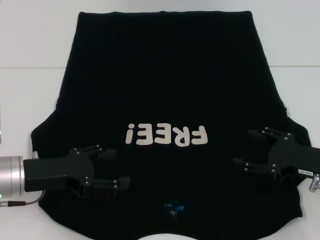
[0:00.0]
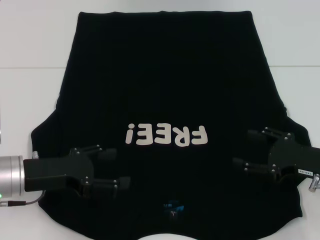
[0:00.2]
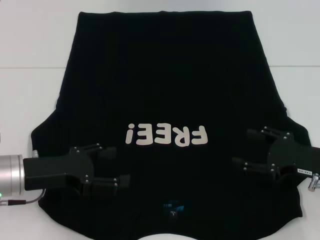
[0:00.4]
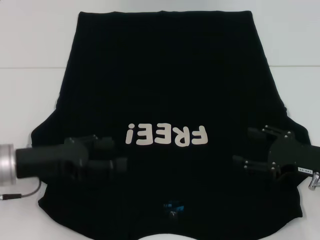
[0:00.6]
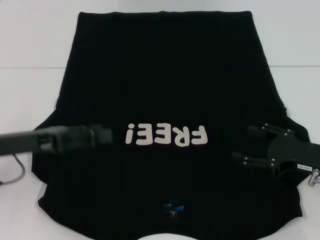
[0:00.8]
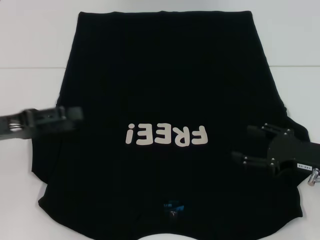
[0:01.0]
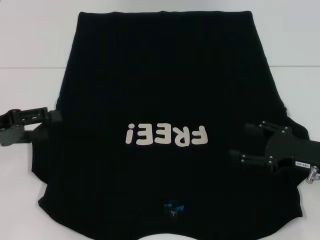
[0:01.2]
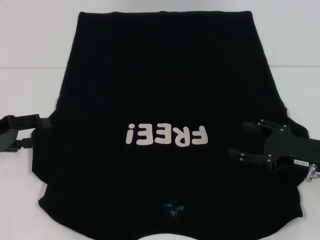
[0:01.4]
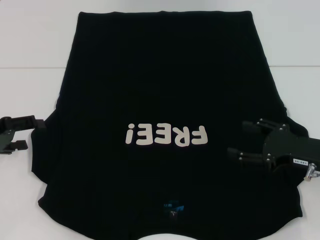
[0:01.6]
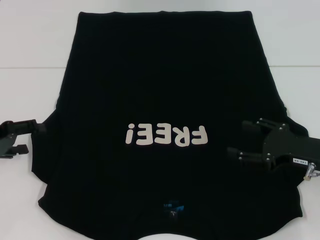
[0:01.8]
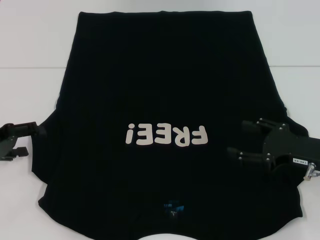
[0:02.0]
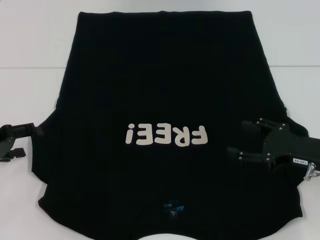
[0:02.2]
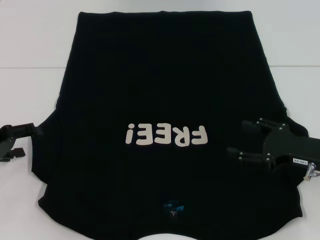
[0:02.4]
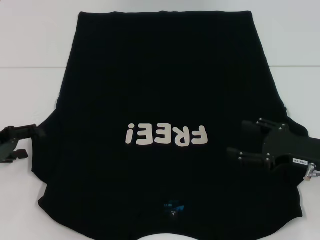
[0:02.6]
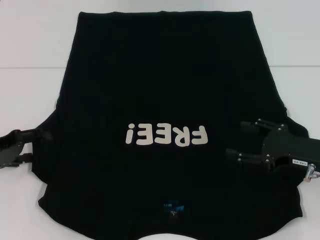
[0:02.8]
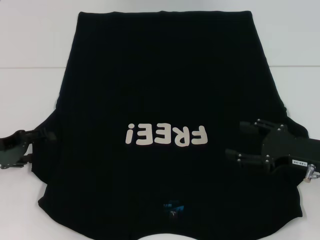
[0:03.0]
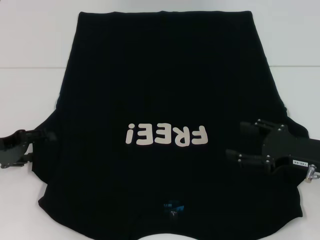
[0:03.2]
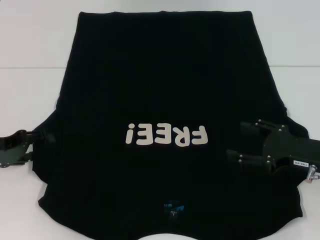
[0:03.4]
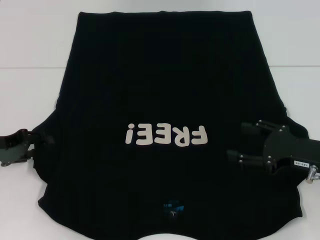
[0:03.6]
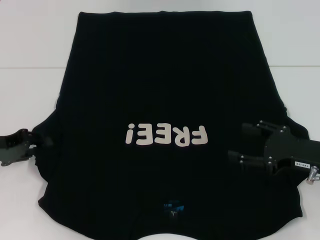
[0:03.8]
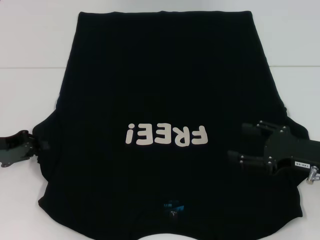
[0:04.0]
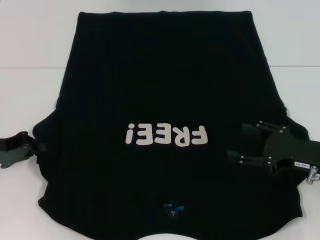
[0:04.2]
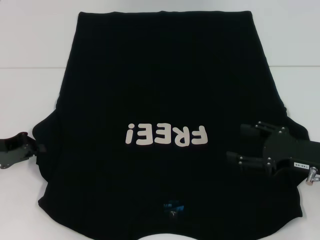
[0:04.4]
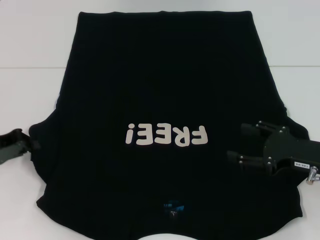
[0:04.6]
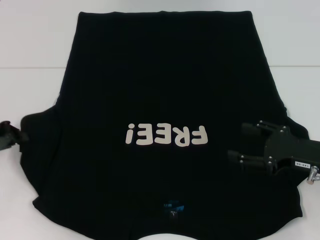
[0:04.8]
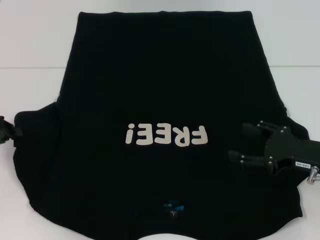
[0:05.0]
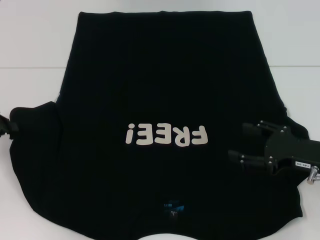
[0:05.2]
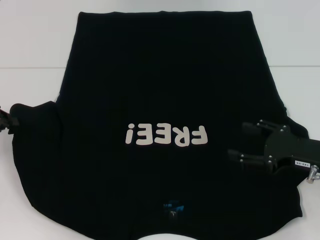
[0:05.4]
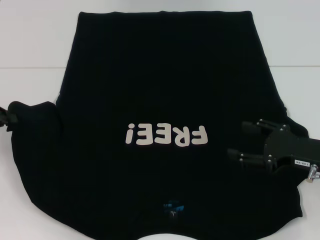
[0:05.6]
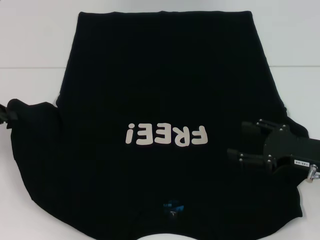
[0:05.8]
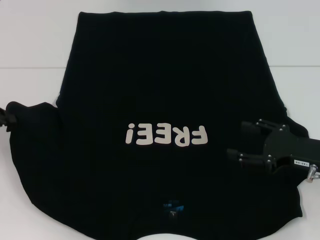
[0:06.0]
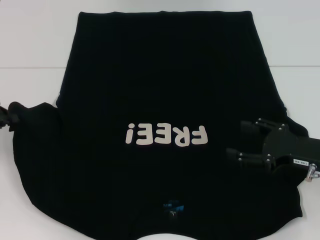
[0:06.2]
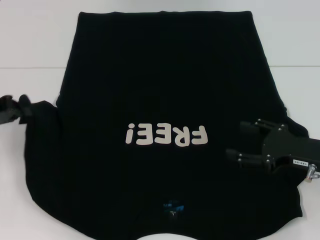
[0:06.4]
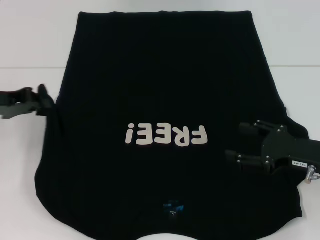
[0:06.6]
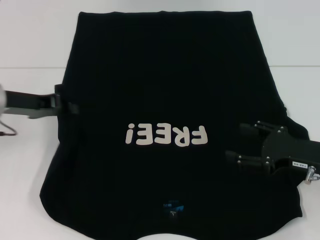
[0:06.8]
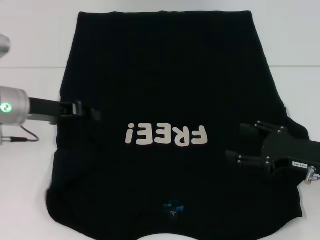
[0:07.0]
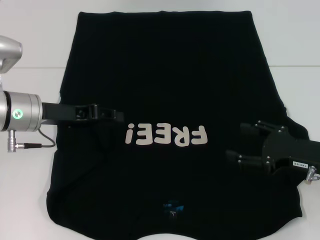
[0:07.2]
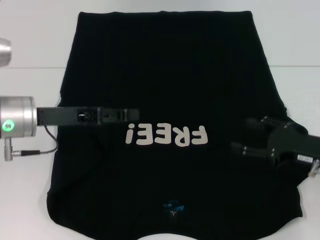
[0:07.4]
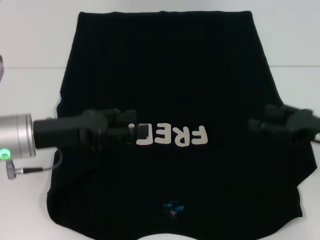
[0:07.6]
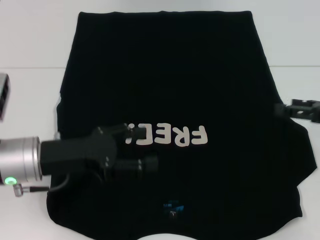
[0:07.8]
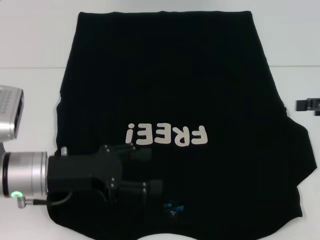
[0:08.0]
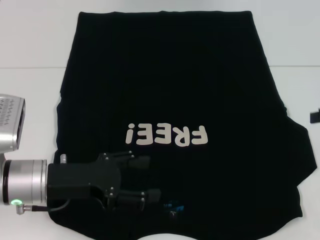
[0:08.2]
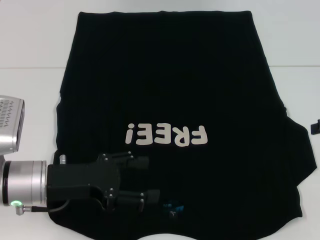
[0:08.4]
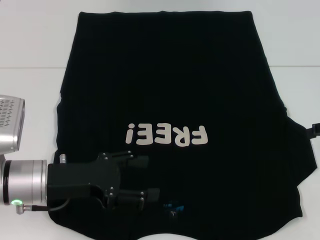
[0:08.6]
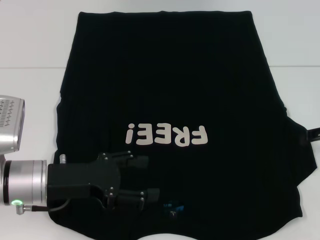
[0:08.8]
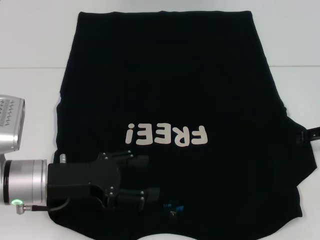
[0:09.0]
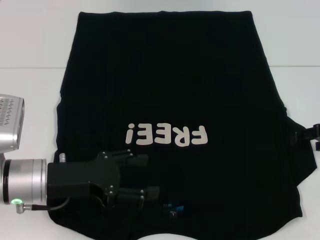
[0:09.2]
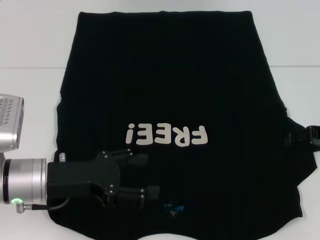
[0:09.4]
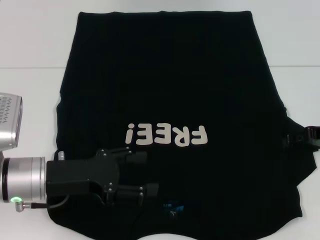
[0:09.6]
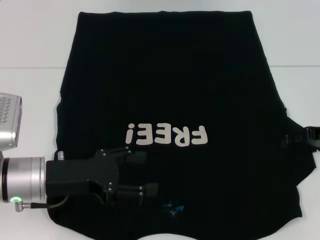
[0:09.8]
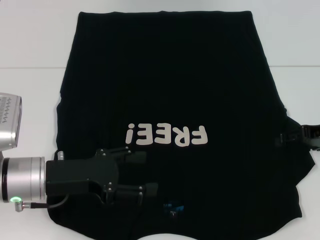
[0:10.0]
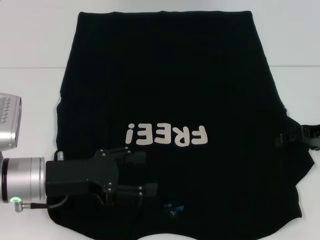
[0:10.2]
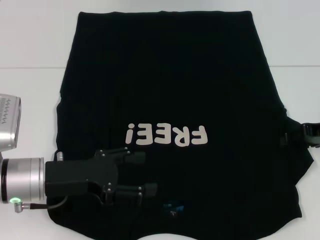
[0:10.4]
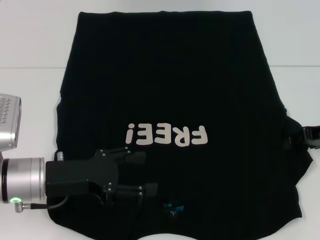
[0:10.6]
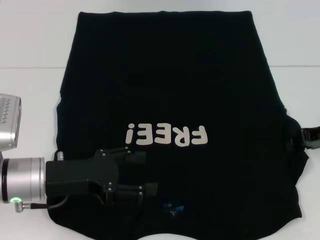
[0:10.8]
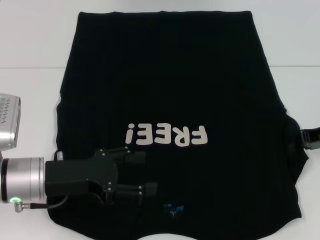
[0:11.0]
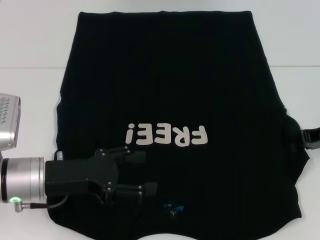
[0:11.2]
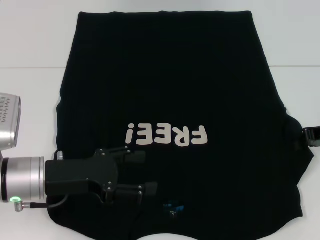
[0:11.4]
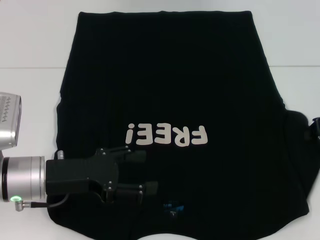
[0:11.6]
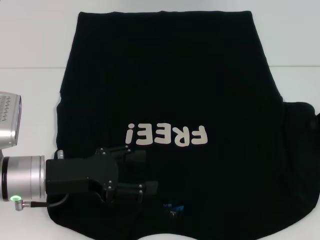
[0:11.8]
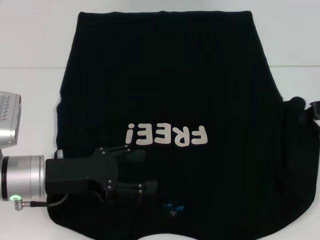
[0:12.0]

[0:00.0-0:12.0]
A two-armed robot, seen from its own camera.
Step, 0:00.0 to 0:07.8: Fold the bottom left sleeve with your left hand.
0:00.0 to 0:01.6: The left gripper is displaced to the left by about 10 cm.
0:01.6 to 0:03.0: There are only small adjustments of the grippers.
0:03.0 to 0:04.4: The left gripper closes its fingers.
0:04.4 to 0:06.0: The left gripper moves about 5 cm.
0:06.0 to 0:07.6: The left gripper heads to the right, covering roughly 15 cm, and opens its fingers.
0:07.6 to 0:09.0: The right gripper moves forward, approximately 5 cm, while the left gripper changes place by some 5 cm, and opens its fingers.
0:09.0 to 0:10.4: The grippers stay close to where they were, moving slightly.
0:10.4 to 0:12.0: The right gripper closes its fingers.

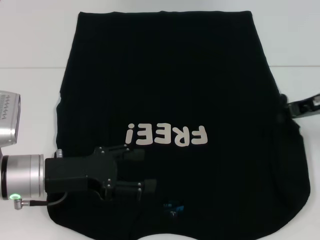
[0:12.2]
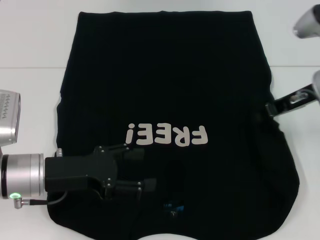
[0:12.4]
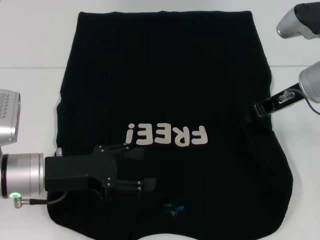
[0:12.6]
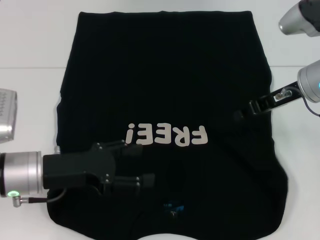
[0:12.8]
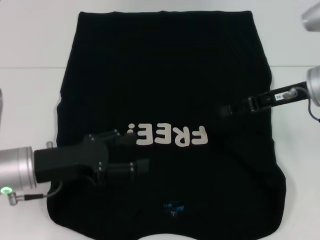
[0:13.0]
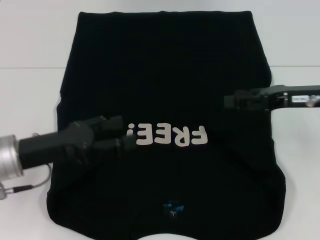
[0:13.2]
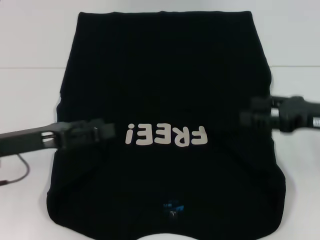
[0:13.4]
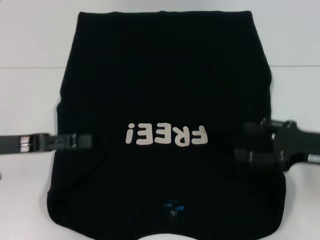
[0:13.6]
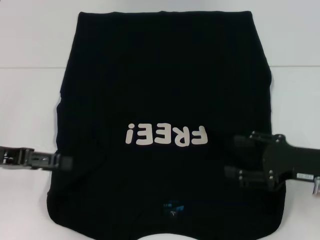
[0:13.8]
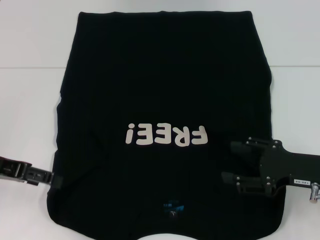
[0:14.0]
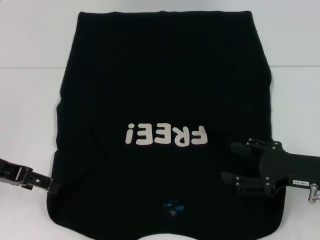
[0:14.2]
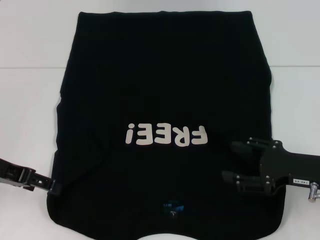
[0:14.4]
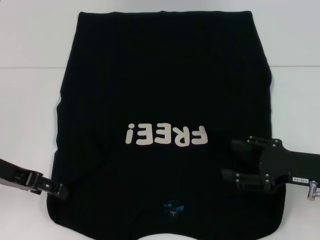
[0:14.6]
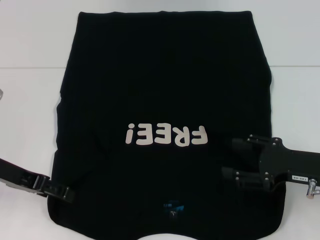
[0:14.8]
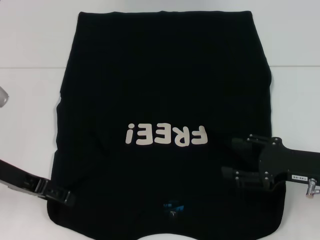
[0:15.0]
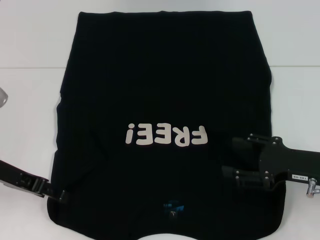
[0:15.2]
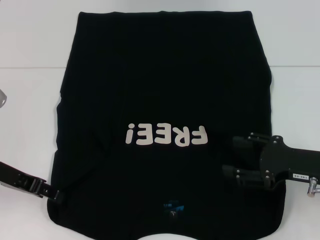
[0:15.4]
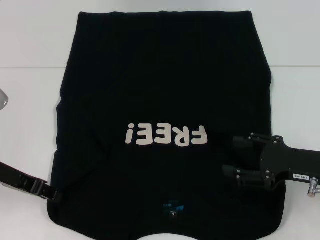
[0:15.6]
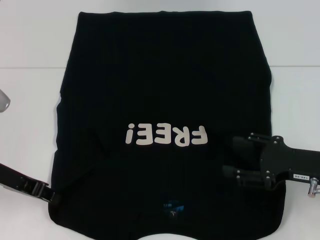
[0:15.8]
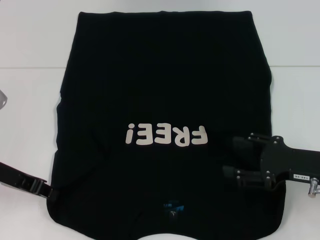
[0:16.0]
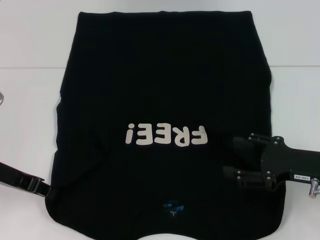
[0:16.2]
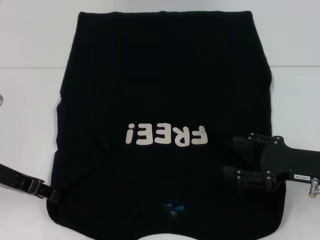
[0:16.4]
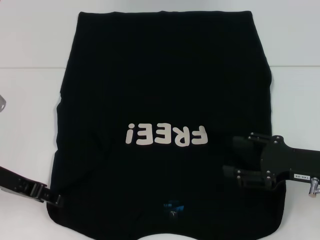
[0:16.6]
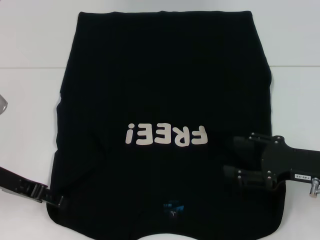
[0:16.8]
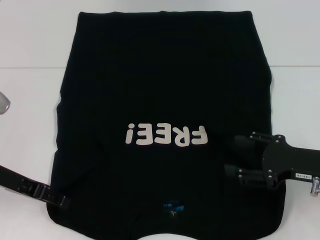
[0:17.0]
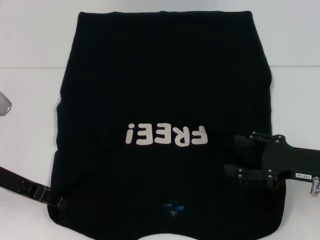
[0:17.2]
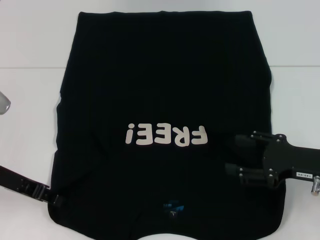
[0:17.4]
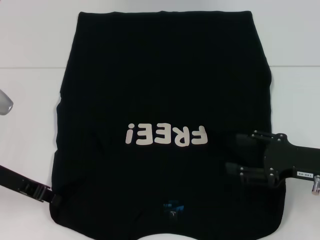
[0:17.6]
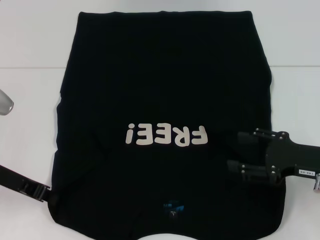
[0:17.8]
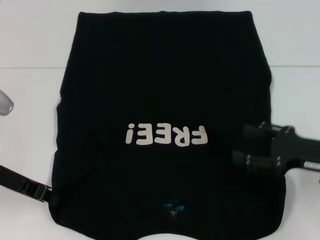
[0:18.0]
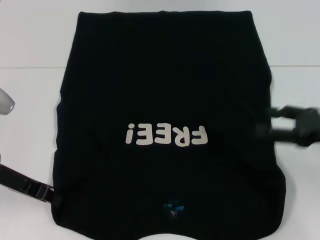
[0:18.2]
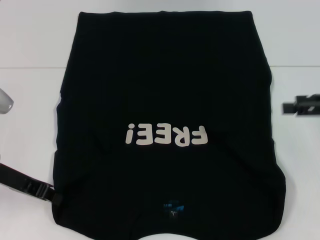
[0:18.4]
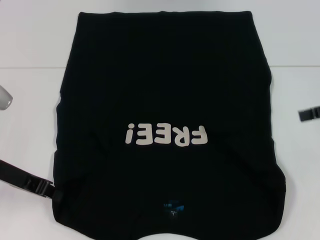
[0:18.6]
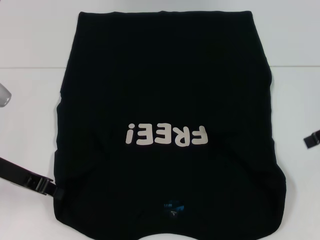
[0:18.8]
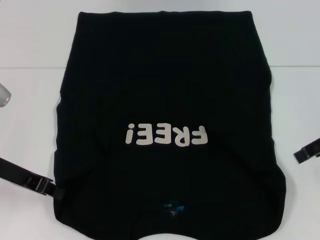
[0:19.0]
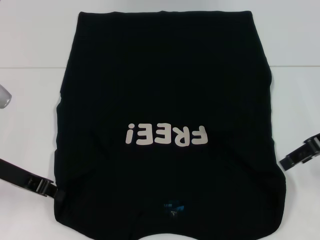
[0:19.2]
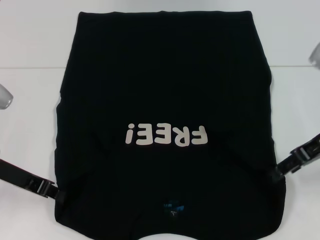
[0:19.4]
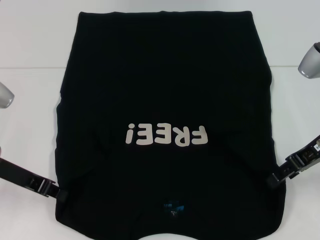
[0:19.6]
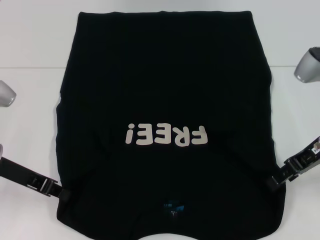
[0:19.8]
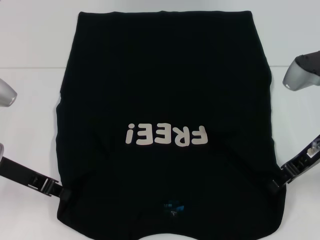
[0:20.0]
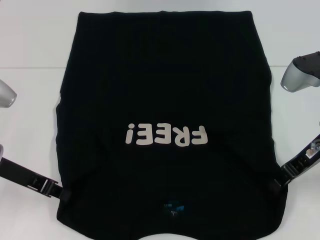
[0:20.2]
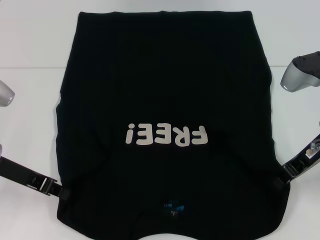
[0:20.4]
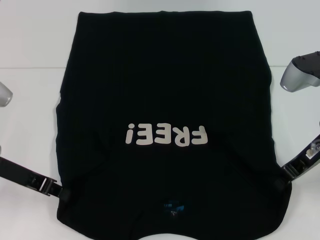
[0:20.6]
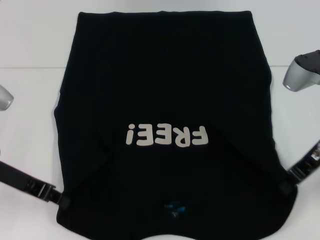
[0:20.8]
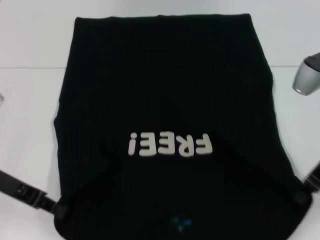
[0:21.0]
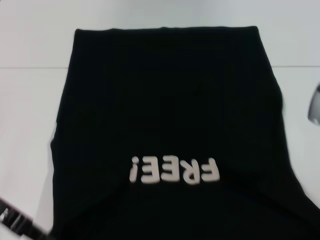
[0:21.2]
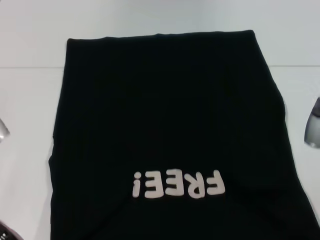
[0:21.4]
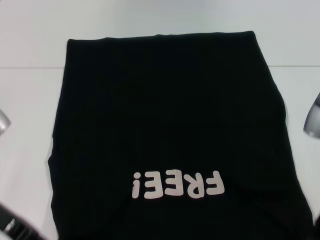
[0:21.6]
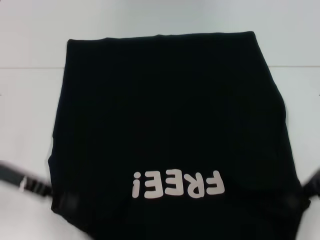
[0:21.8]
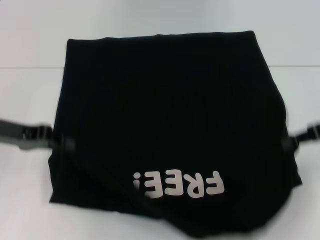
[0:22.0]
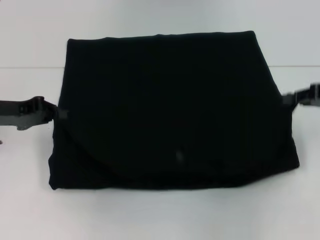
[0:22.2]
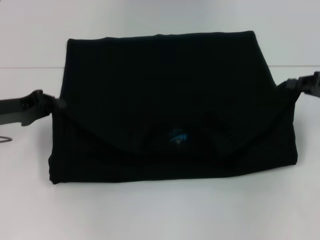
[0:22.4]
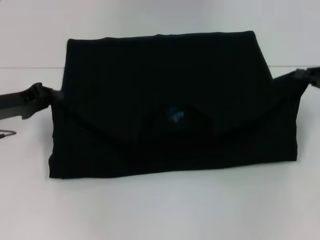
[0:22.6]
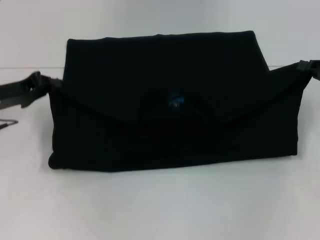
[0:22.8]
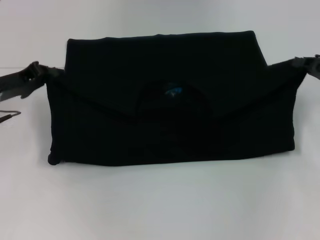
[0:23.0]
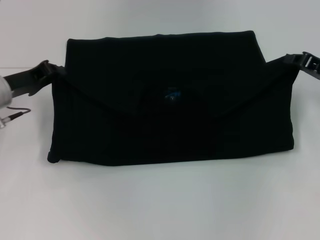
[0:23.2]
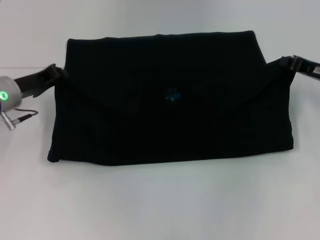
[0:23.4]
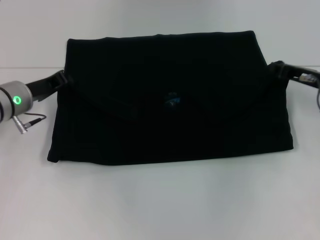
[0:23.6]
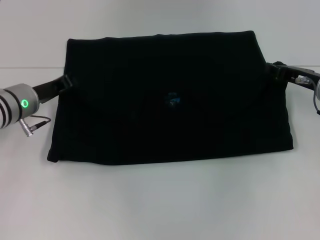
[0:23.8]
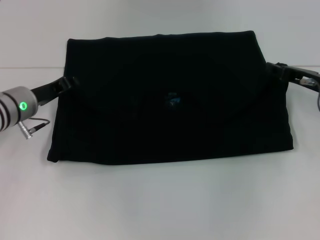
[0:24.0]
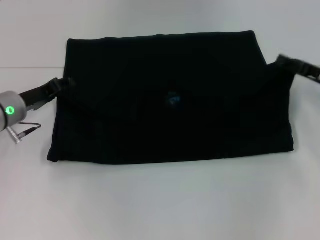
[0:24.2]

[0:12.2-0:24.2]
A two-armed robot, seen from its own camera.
Step, 0:13.4 to 0:20.8: Grab the bottom left corner with your left hand.
Step, 0:13.4 to 0:20.8: Grab the bottom right corner with your right hand.
0:12.2 to 0:13.8: The right gripper goes some 15 cm backward and downward, and opens up. The left gripper goes roughly 10 cm to the left and upward.
0:15.2 to 0:16.6: The left gripper closes up.
0:16.6 to 0:18.2: The right gripper shifts by some 5 cm. The left gripper closes its fingers.
0:18.2 to 0:19.8: The right gripper moves to the left and forward, roughly 10 cm.
0:19.8 to 0:21.2: The right gripper closes its fingers.
0:21.2 to 0:22.6: The left gripper travels forward by approximately 5 cm. The right gripper heads to the right, covering approximately 10 cm.
0:22.6 to 0:24.2: The left gripper moves roughly 5 cm. The right gripper opens.
